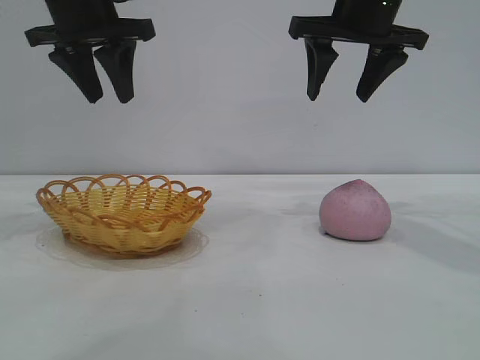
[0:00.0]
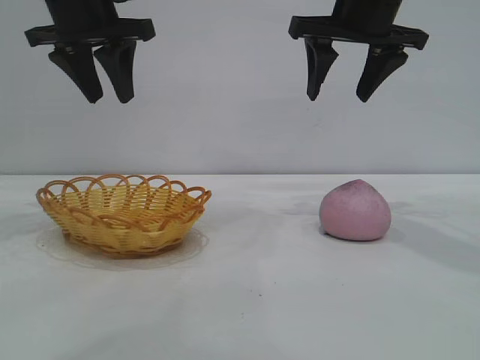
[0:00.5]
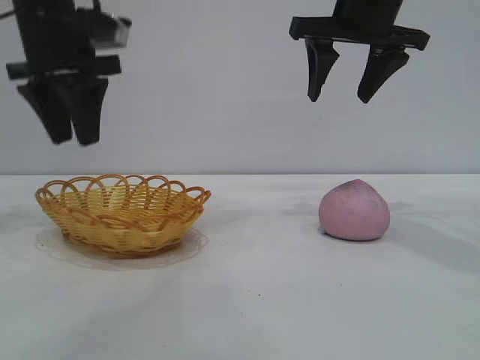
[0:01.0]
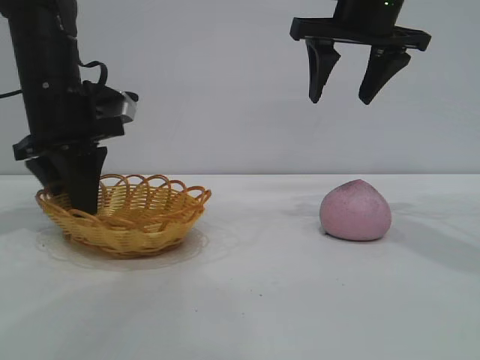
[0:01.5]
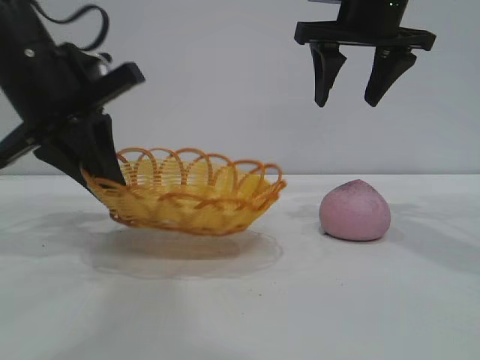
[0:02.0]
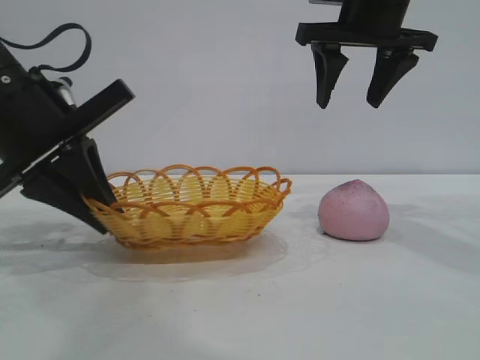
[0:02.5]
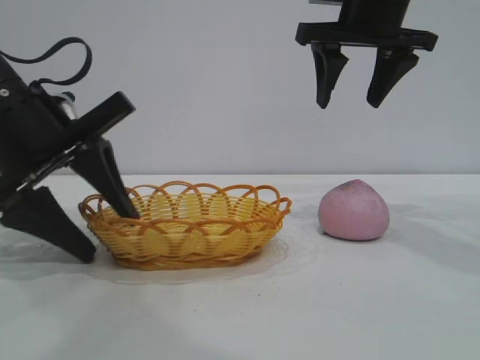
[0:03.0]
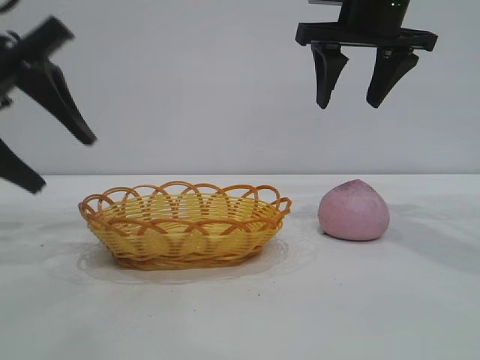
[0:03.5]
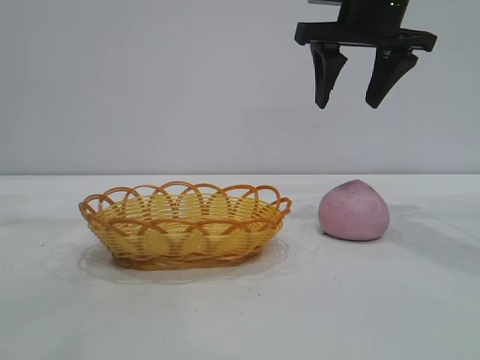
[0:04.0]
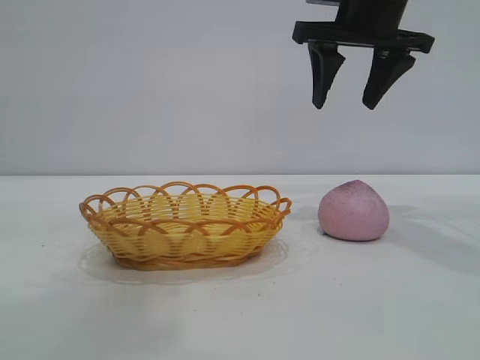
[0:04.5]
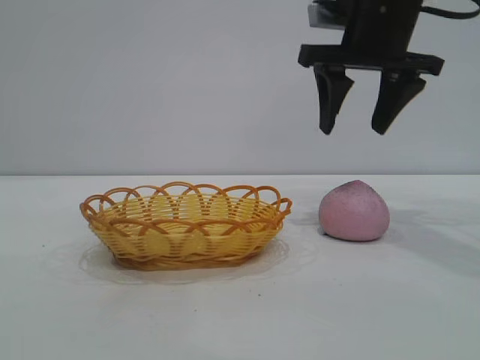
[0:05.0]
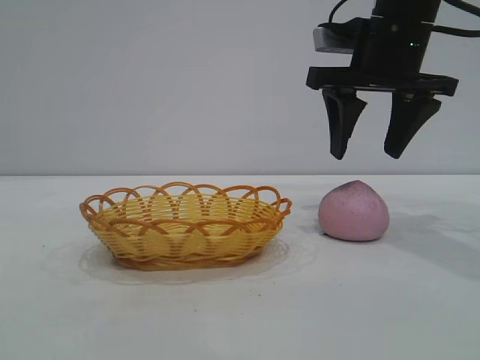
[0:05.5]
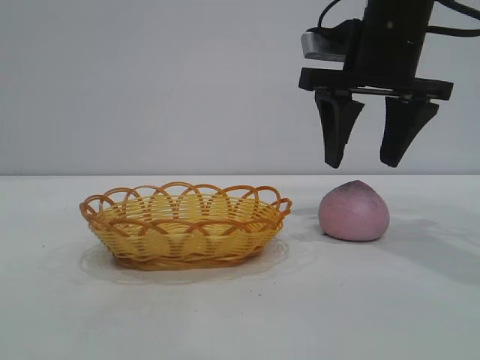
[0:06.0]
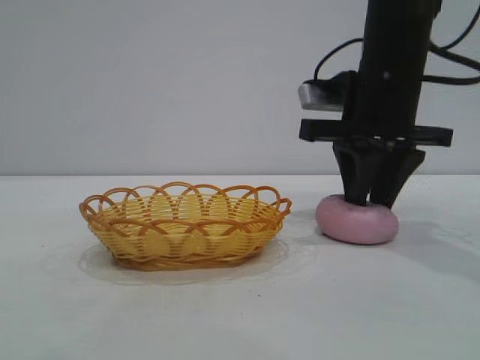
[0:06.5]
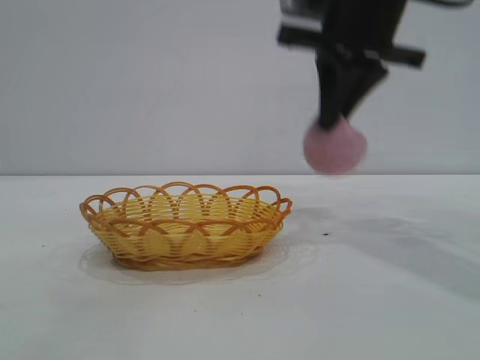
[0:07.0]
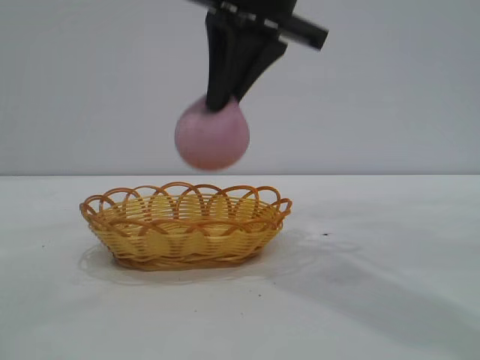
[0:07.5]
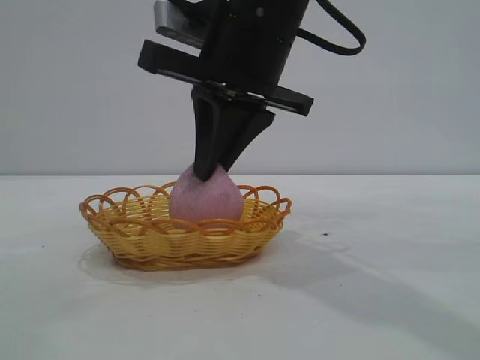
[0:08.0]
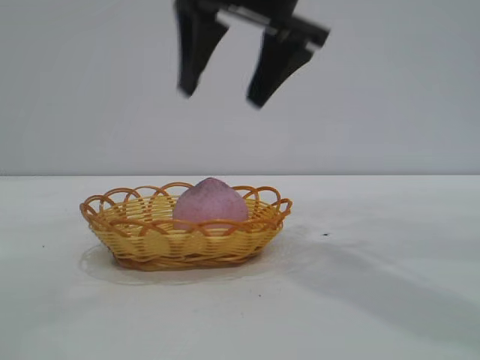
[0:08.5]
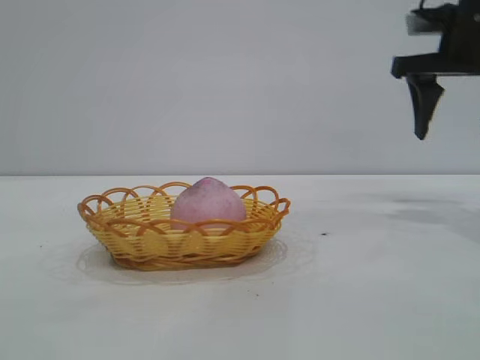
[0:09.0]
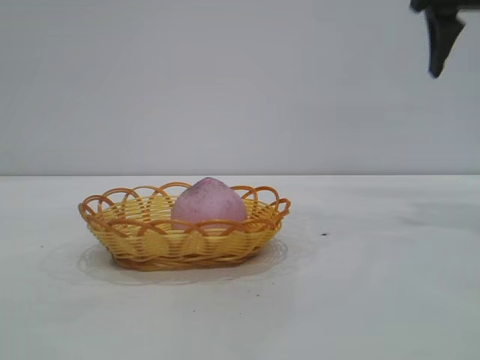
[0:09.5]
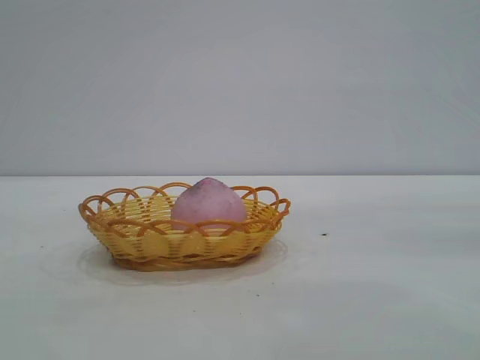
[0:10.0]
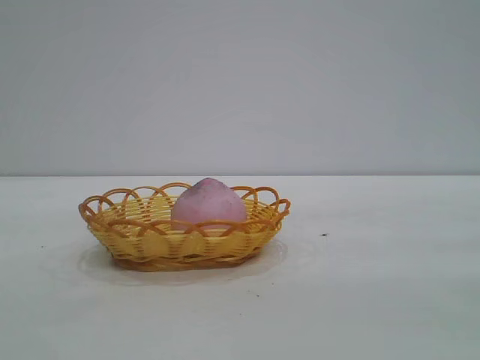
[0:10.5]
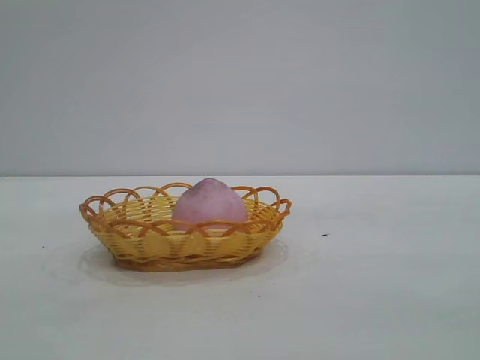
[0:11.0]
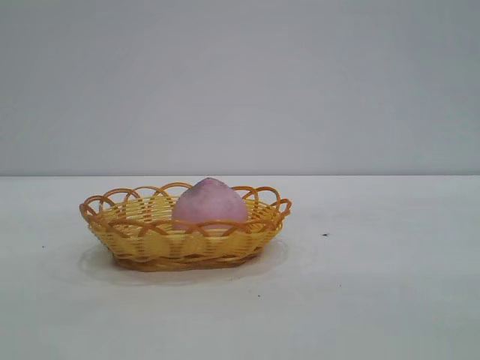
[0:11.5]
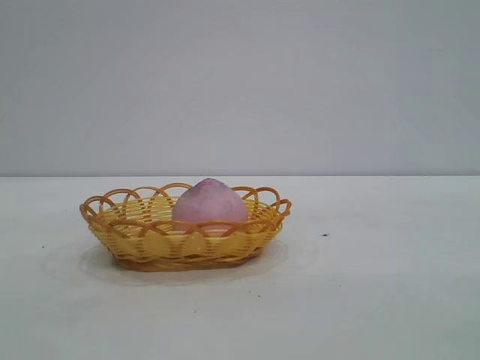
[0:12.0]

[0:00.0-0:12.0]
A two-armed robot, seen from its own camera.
Task of the whole recording: pick up the peach and put it into the basket.
Step, 0:00.0 to 0:03.5: Move the basket to the center of view.
Step, 0:04.0 to 0:06.5: Pick up the peach.
Step, 0:07.5 to 0:08.5: place the peach into the basket.

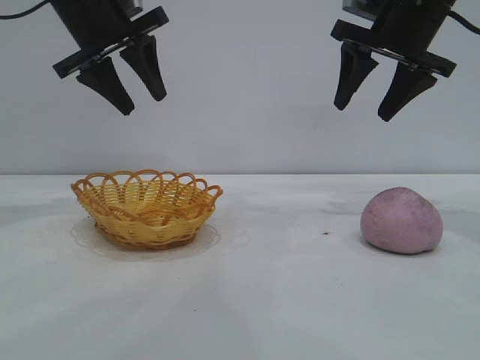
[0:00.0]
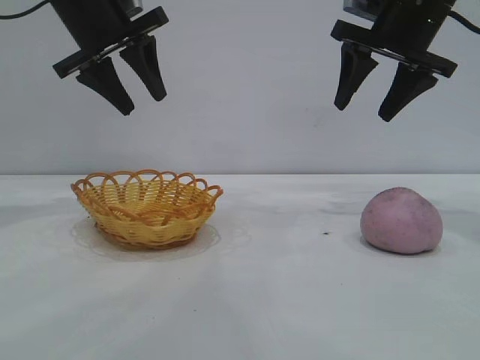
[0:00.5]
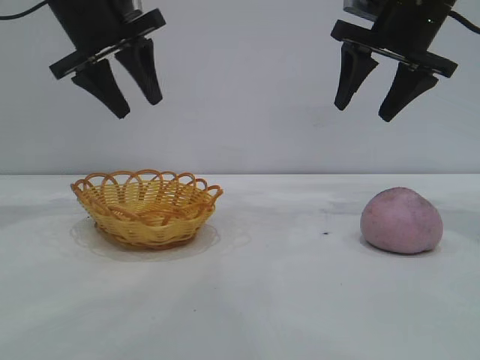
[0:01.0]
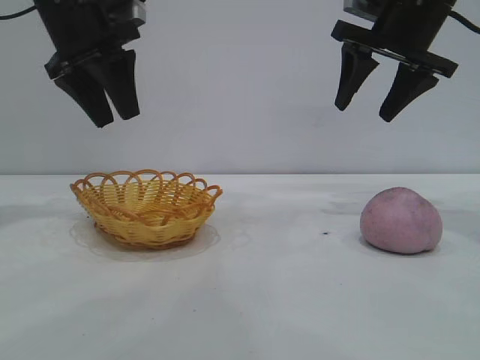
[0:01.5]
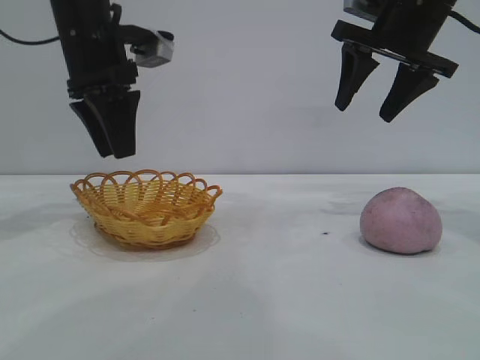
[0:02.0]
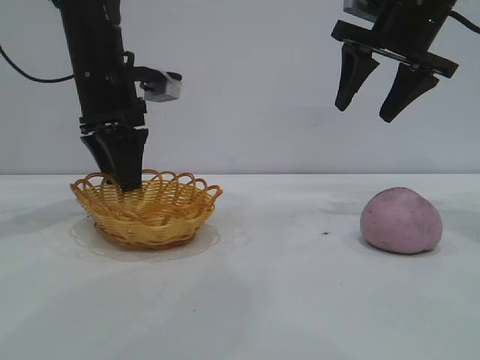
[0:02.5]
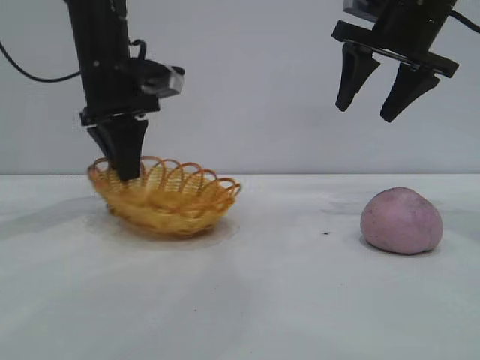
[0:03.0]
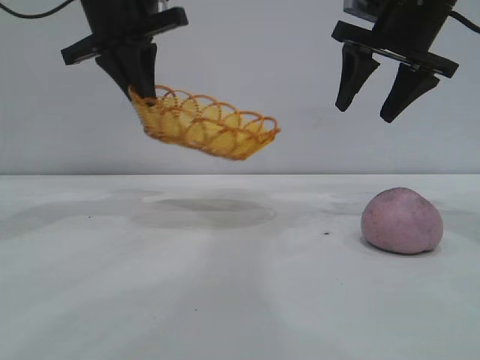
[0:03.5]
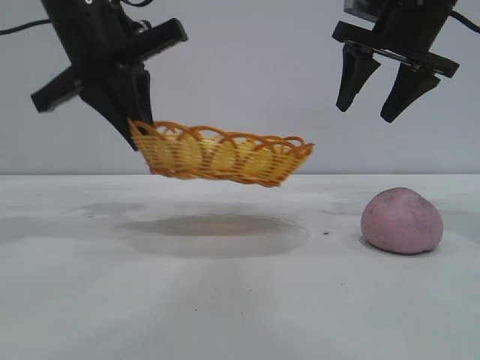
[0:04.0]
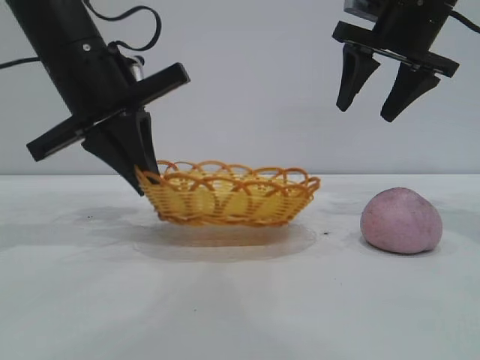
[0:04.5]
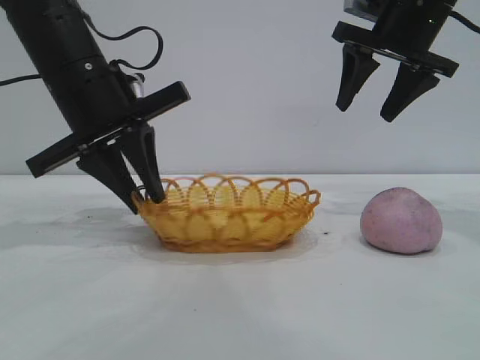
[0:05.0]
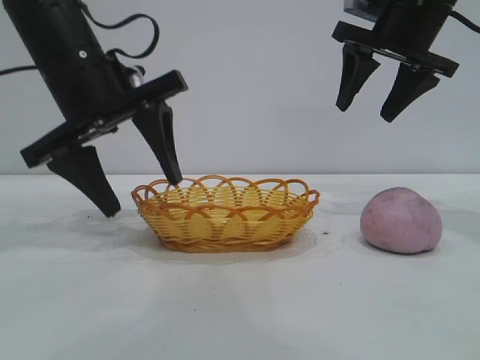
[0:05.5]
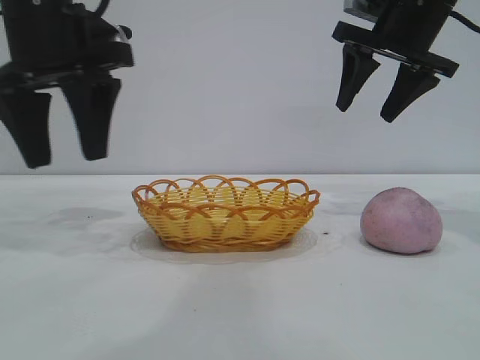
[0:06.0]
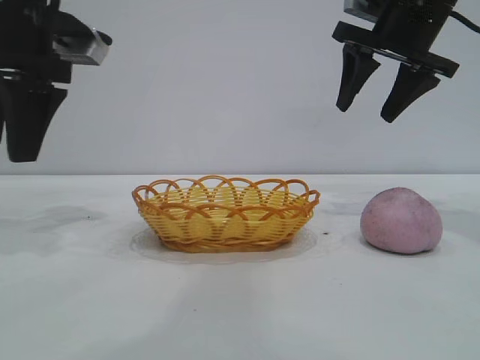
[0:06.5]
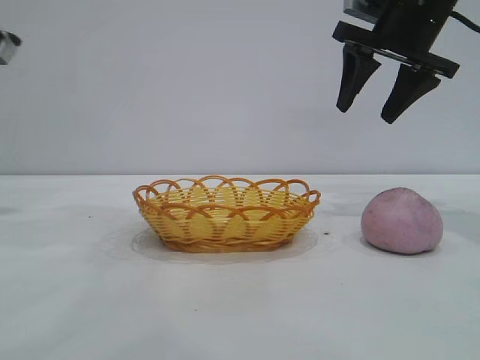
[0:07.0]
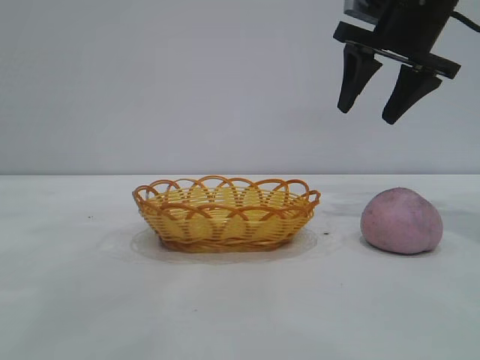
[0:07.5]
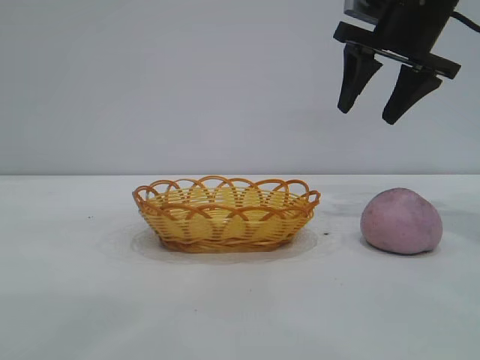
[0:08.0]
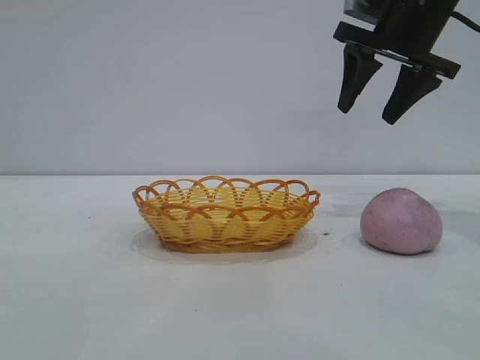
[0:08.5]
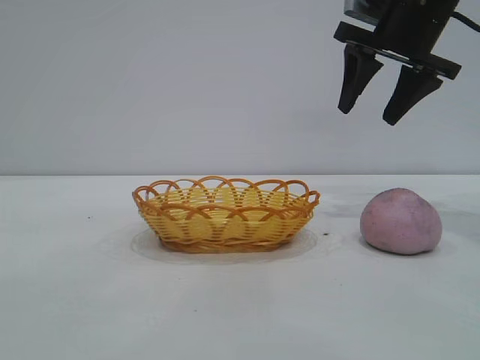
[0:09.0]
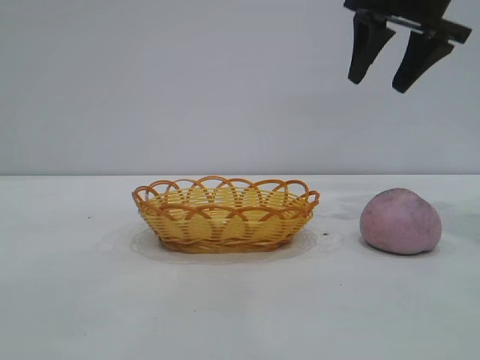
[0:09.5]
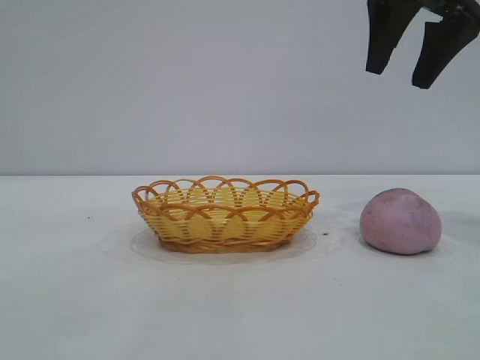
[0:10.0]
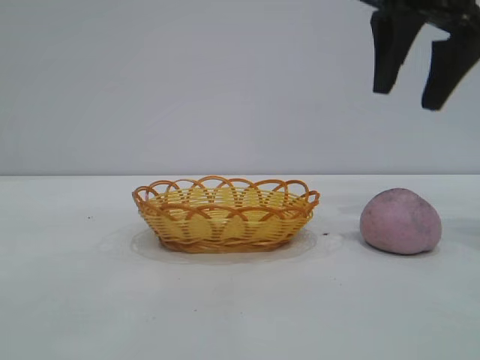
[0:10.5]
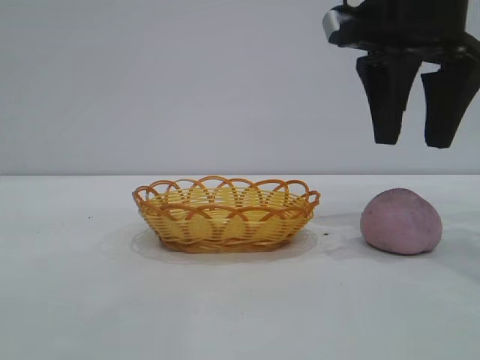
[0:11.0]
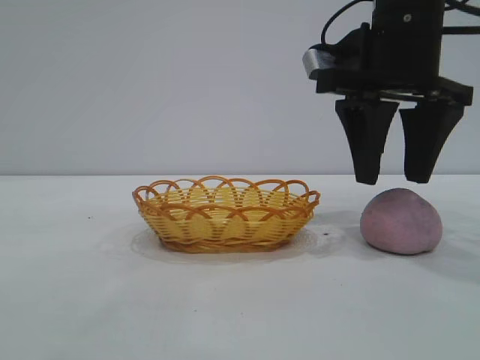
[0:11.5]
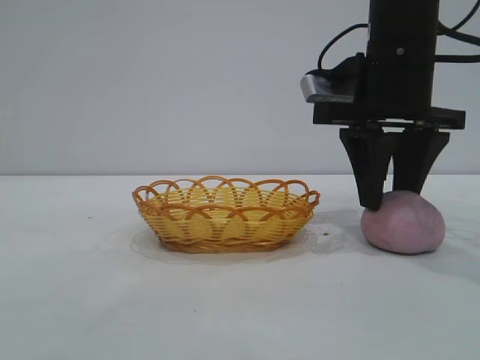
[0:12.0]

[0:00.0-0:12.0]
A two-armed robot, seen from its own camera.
Task of the whole recording: pick up the peach and put it into the basket.
Step, 0:00.0 to 0:05.5: Move the basket to the center of view.

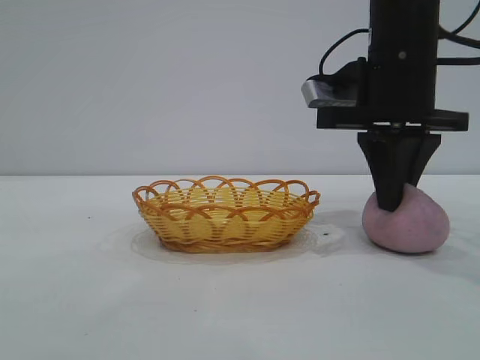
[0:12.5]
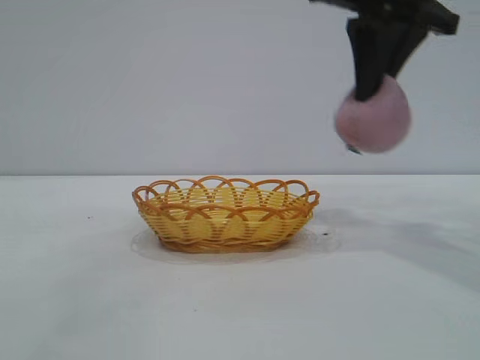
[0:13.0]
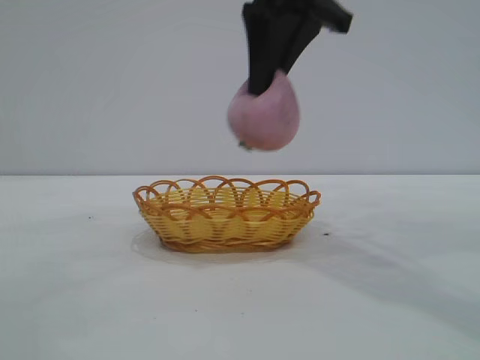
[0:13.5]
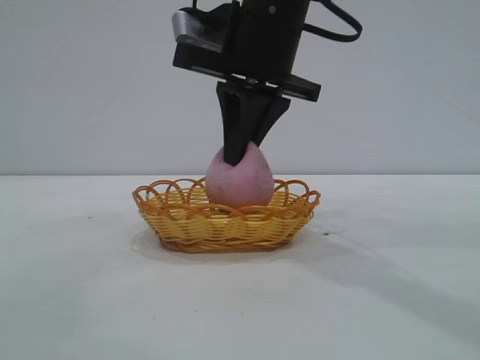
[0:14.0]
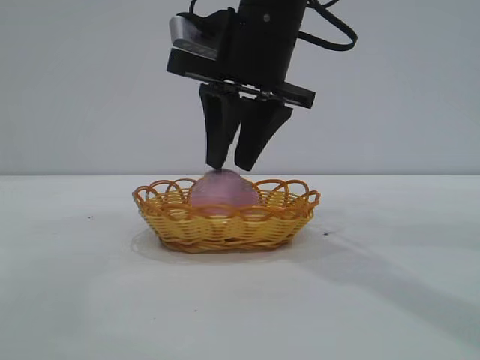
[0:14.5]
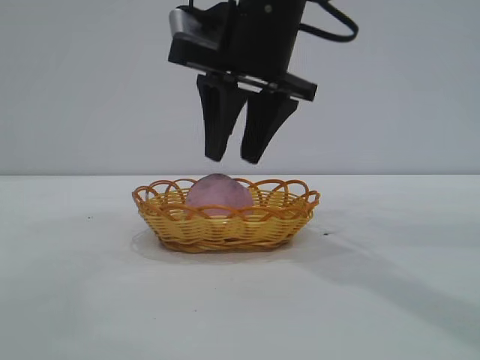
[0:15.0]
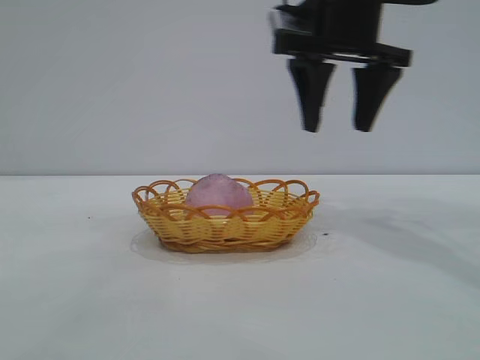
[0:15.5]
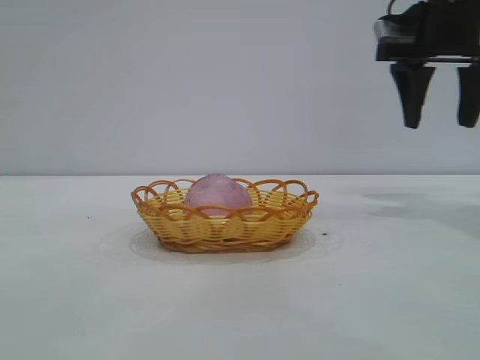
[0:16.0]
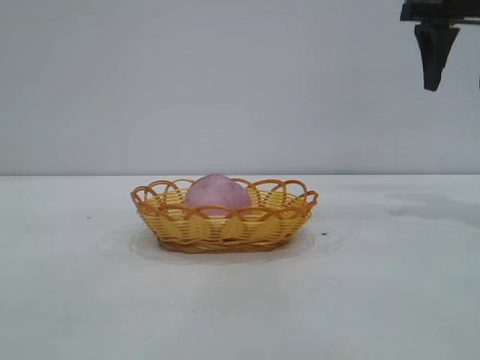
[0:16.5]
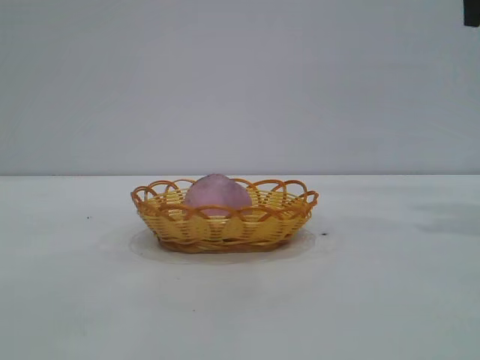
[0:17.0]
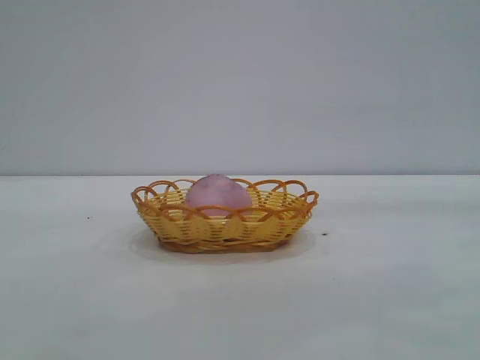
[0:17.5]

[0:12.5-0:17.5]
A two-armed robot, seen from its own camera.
Task of the whole recording: pick up the peach and put it into the basket.
Step, 0:13.0 to 0:15.0: place the peach into the basket.
